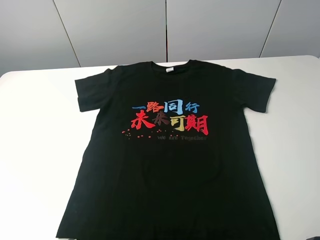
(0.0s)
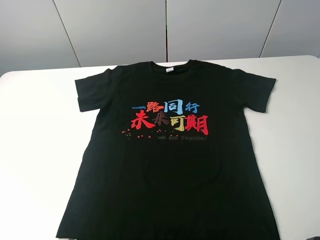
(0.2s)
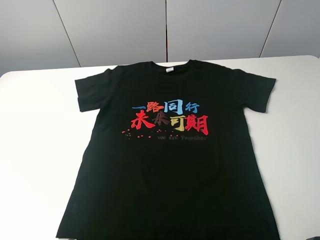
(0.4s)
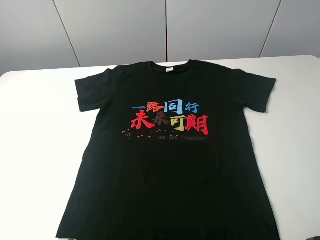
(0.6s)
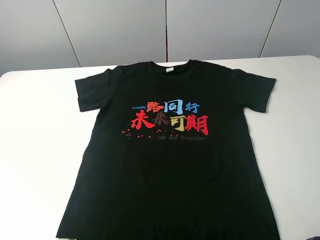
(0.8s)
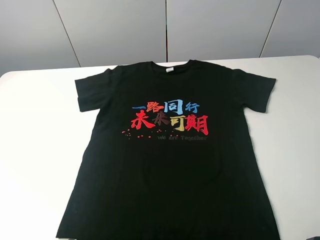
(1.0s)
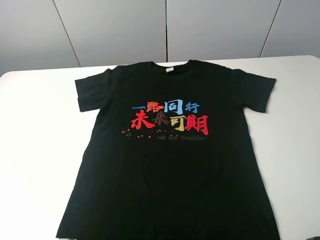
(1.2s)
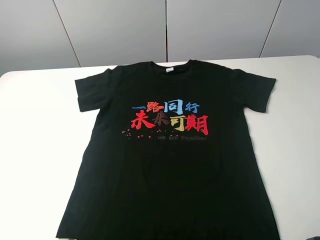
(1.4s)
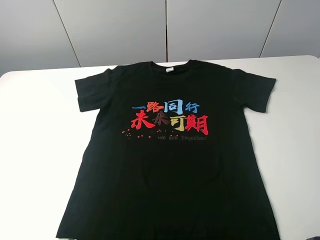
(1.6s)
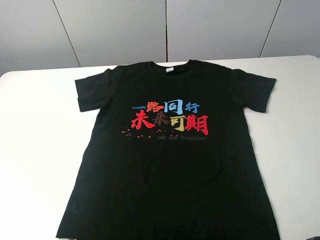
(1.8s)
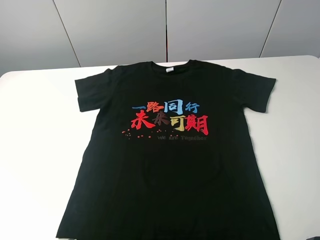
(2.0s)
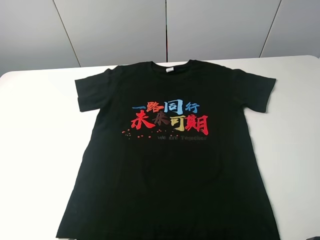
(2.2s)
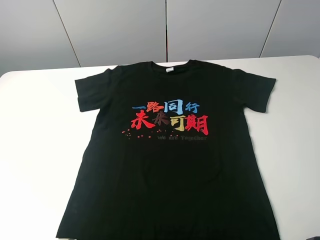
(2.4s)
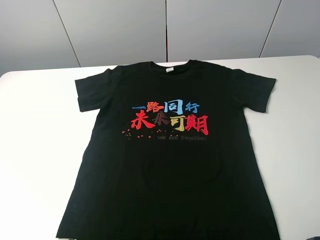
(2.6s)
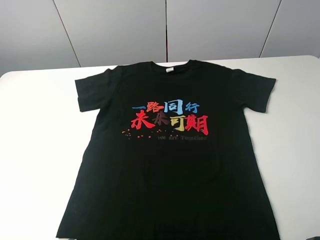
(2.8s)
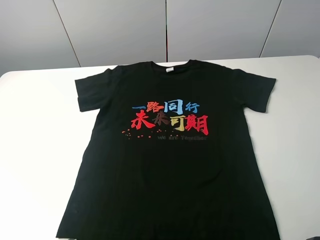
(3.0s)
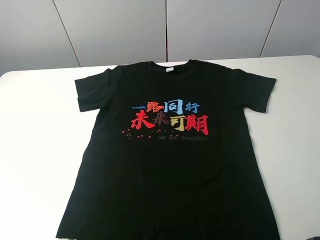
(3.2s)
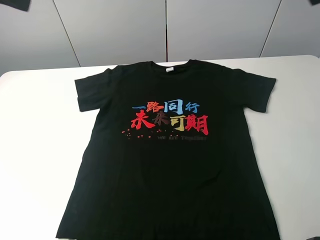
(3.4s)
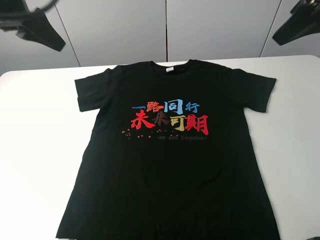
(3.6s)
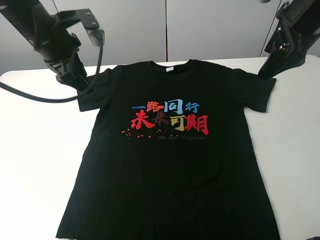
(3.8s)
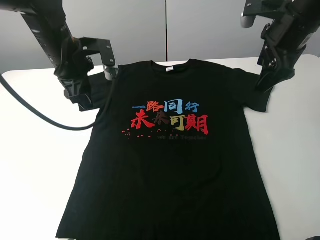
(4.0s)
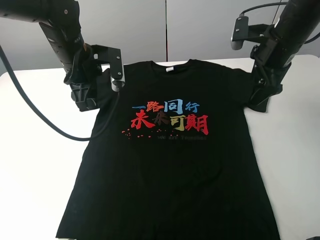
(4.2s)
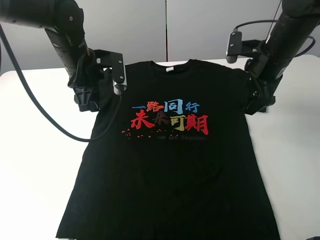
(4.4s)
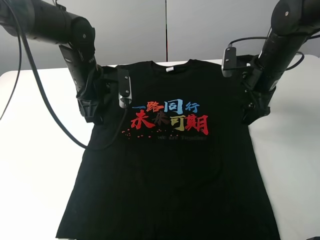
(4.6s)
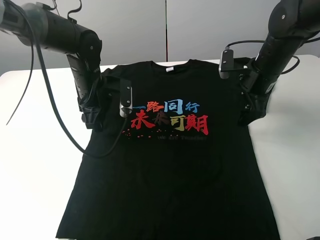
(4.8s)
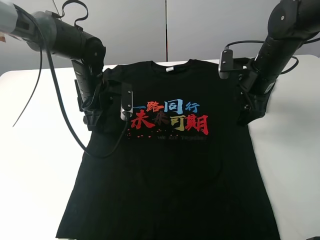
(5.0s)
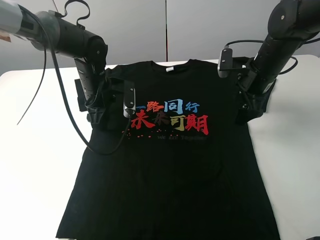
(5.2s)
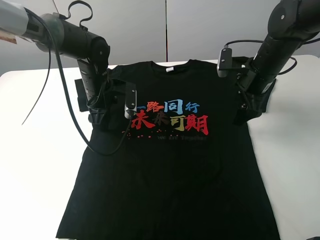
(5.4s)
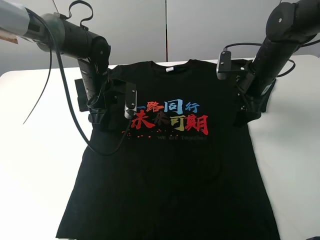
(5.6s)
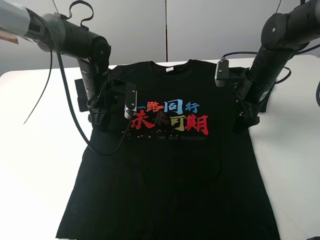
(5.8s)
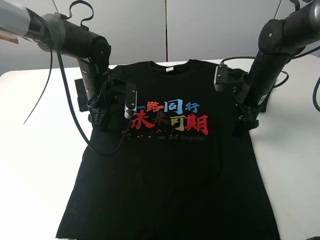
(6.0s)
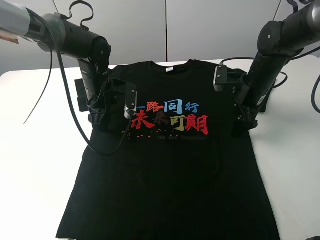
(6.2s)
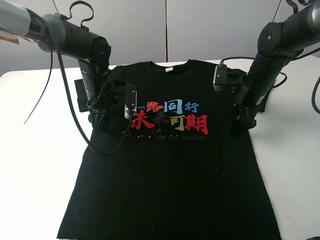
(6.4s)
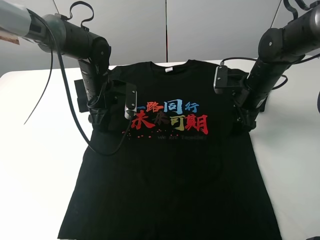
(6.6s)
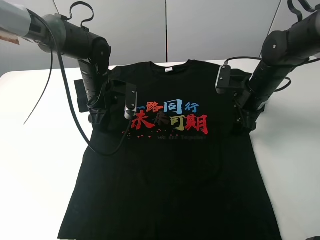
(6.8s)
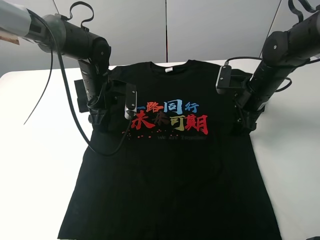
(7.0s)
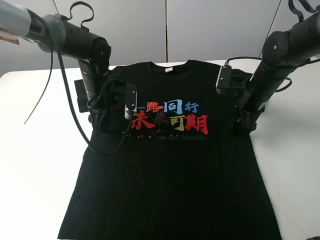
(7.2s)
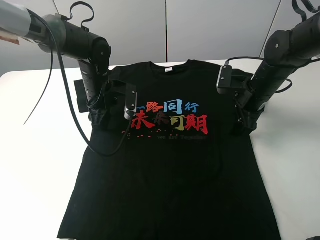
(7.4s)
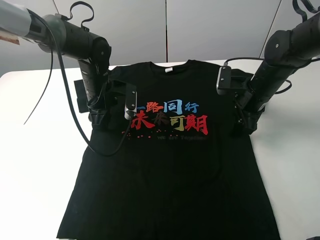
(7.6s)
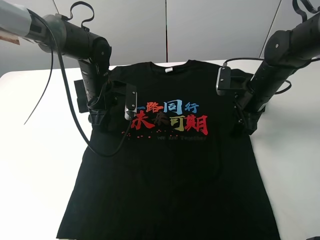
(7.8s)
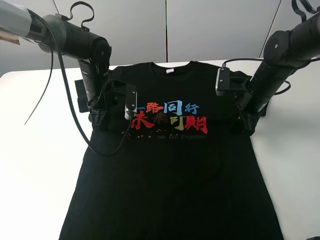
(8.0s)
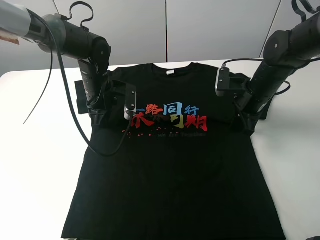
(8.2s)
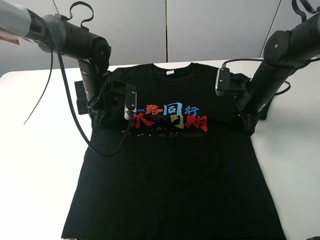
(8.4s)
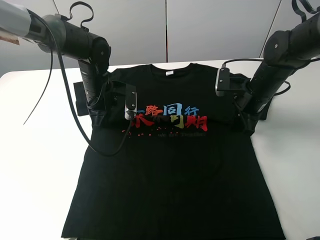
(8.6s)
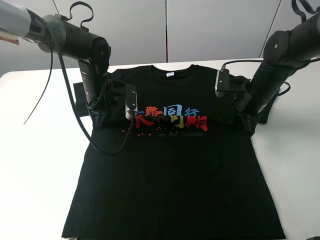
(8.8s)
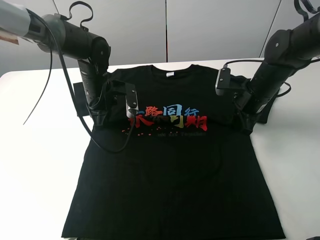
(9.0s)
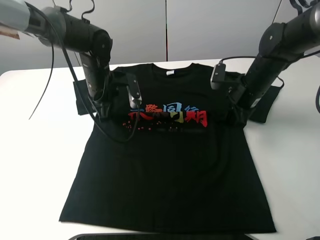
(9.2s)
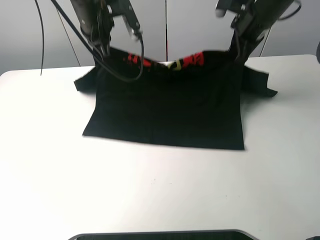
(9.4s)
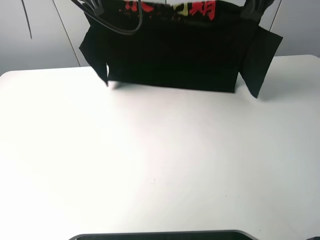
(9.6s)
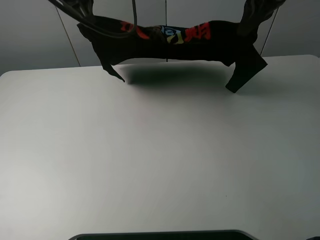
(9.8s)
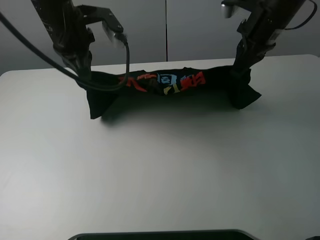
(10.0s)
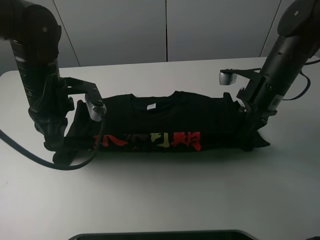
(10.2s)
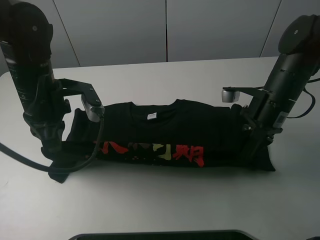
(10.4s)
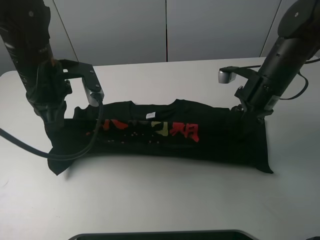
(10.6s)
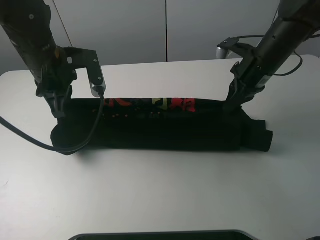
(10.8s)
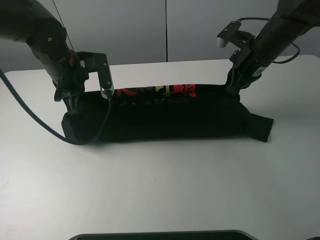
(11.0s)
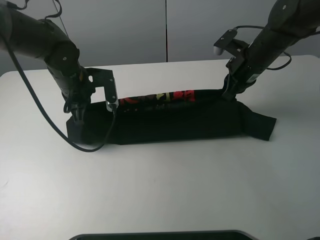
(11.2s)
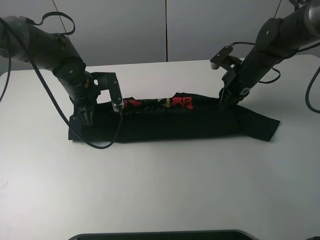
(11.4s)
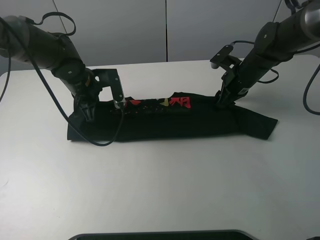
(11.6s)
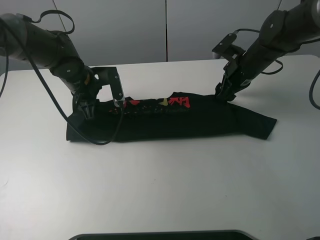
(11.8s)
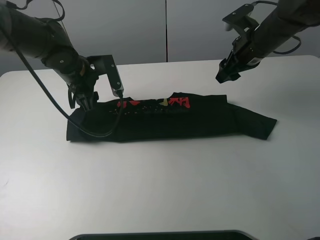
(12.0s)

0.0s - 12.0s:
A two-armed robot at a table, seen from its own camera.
Task of the whole recording: fold the clothes on the table.
Step, 0.0s - 8.4s: Lift the black T-shirt with the left gripper.
Step, 8.6s - 12.0s: Fold the black T-shirt downward with the left gripper.
0.0s - 1.6s: Both grippers stay about where they are.
3.0s - 4.4s: The right gripper shifts about 35 cm downward and forward, while the left gripper shifts approximately 35 cm downward, forward and to the right.
4.4s - 6.0s: The grippers both shift downward by roughly 5 cm.
6.0s - 7.6s: The grippers move only a little.
7.6s - 9.0s: The left gripper closes up. The right gripper closes up.
9.0s - 10.4s: The left gripper shifts approximately 15 cm backward, upward and to the left, while the right gripper goes roughly 5 cm backward, and goes upward and returns, about 25 cm each way.
10.4s - 12.0s: The grippers both shift forward by about 10 cm. The right gripper opens up. The left gripper opens.

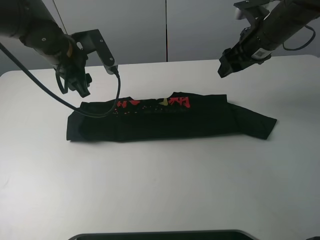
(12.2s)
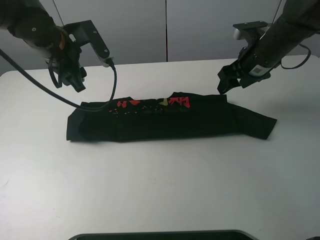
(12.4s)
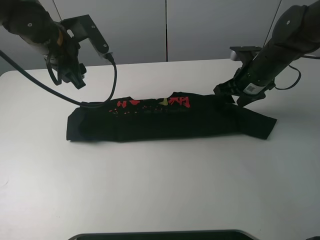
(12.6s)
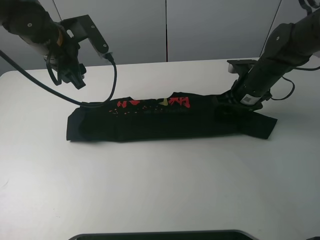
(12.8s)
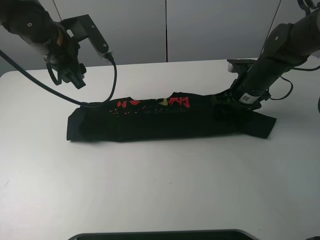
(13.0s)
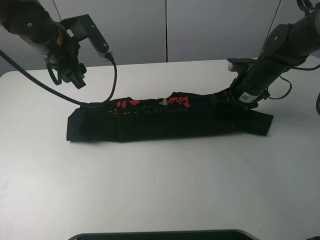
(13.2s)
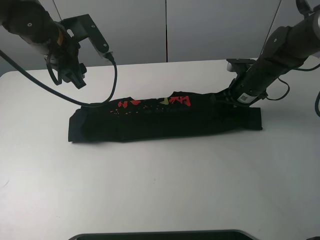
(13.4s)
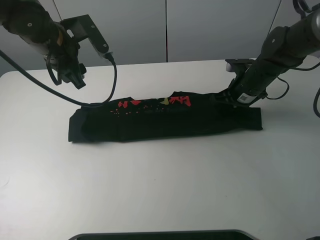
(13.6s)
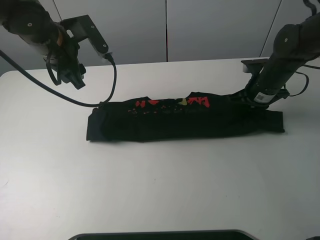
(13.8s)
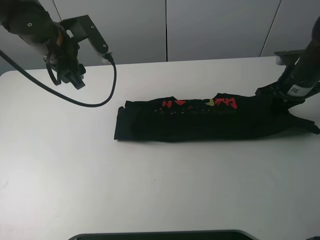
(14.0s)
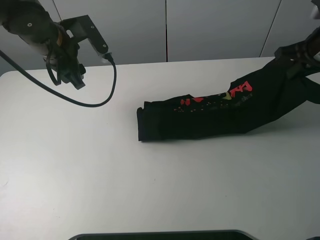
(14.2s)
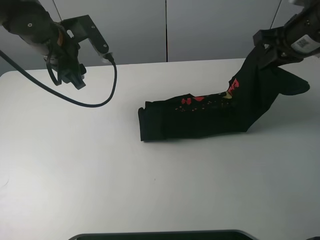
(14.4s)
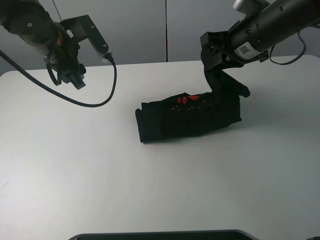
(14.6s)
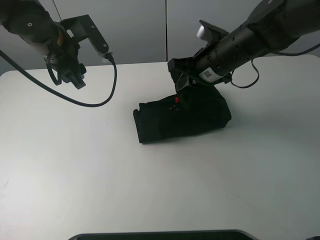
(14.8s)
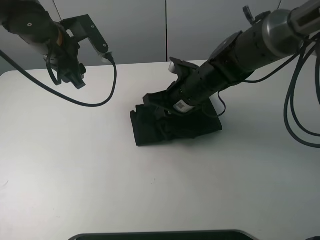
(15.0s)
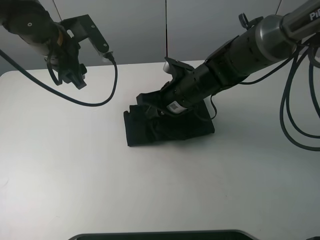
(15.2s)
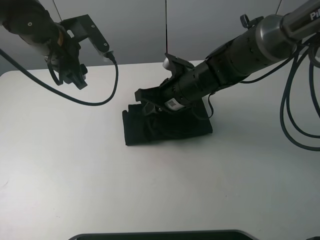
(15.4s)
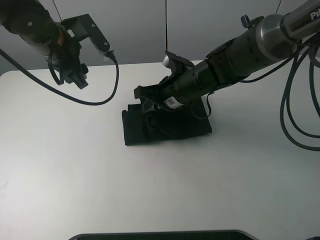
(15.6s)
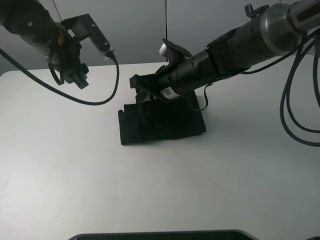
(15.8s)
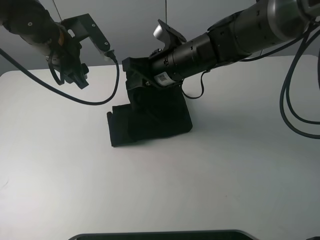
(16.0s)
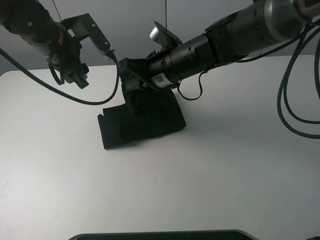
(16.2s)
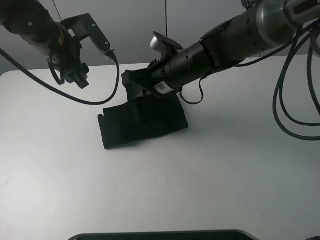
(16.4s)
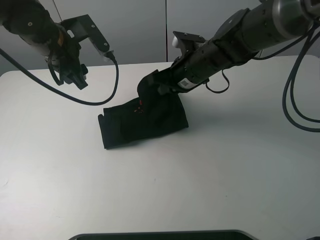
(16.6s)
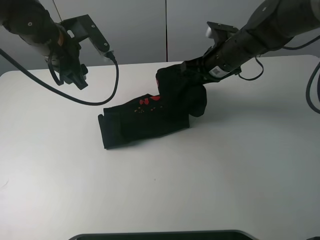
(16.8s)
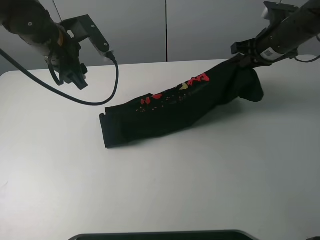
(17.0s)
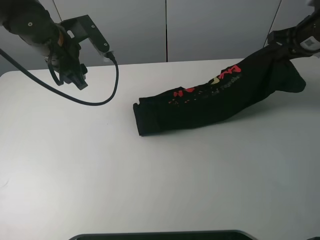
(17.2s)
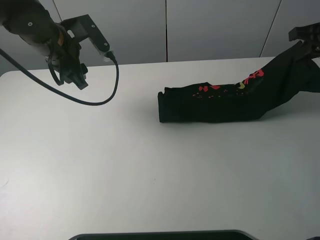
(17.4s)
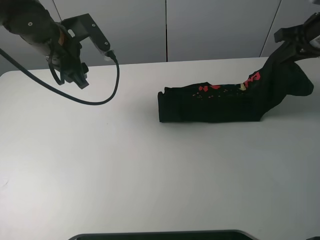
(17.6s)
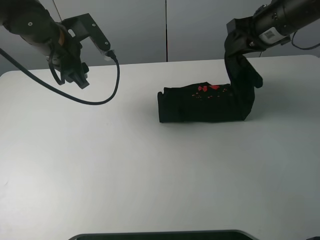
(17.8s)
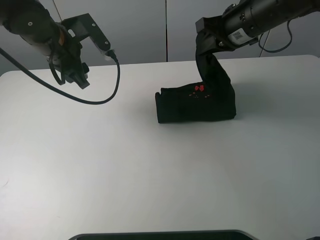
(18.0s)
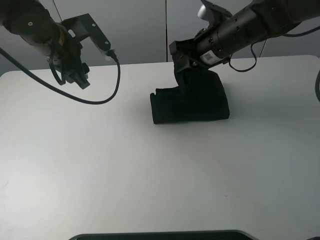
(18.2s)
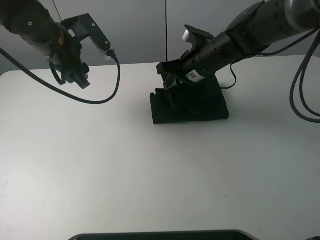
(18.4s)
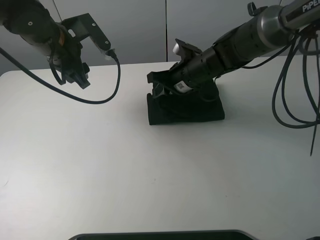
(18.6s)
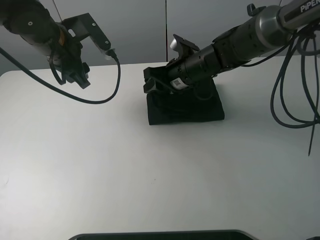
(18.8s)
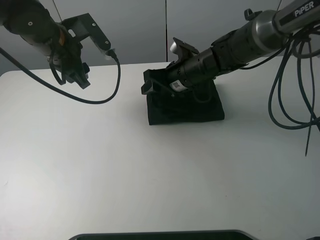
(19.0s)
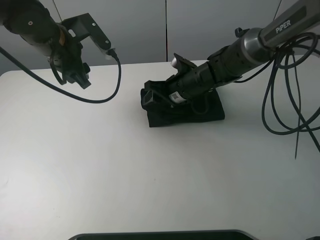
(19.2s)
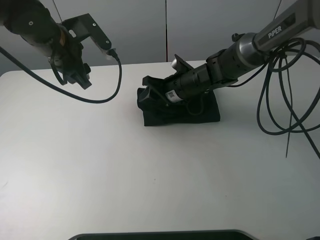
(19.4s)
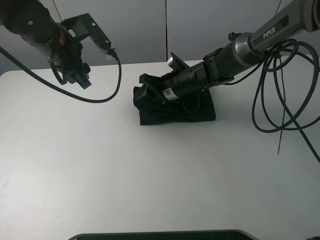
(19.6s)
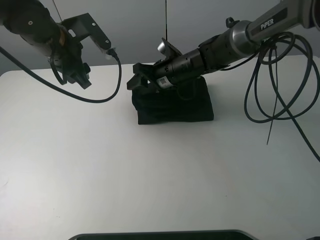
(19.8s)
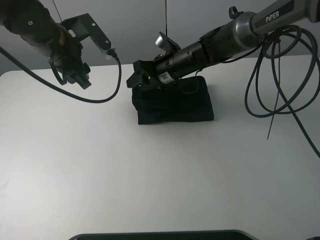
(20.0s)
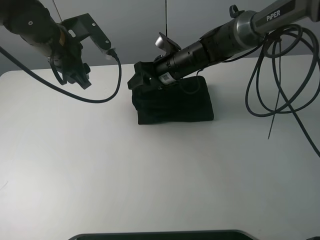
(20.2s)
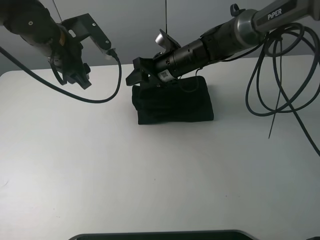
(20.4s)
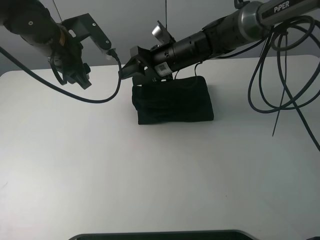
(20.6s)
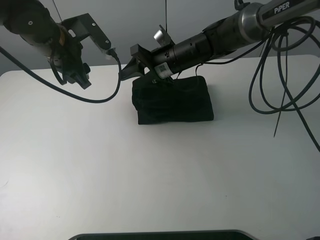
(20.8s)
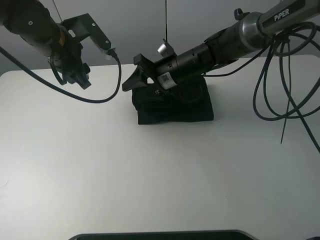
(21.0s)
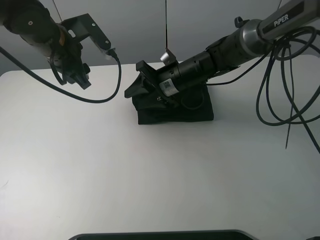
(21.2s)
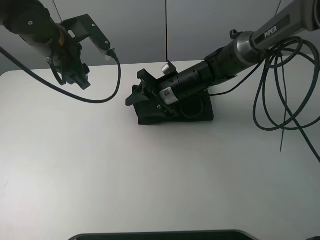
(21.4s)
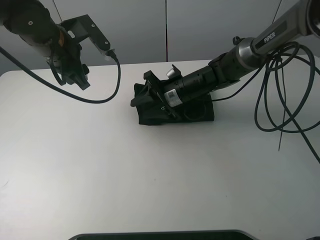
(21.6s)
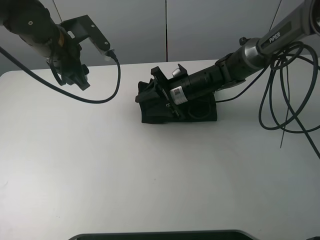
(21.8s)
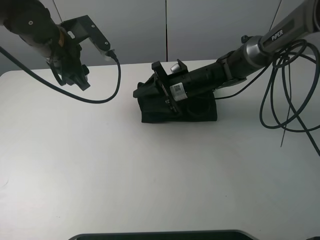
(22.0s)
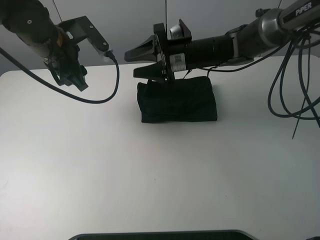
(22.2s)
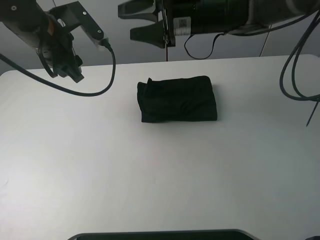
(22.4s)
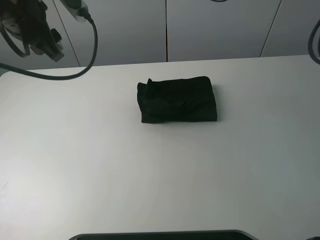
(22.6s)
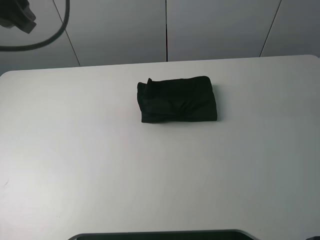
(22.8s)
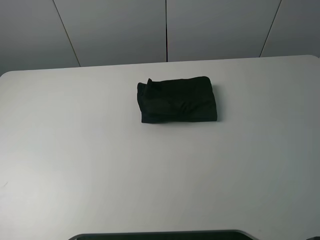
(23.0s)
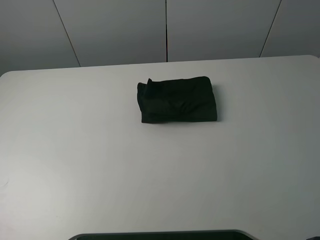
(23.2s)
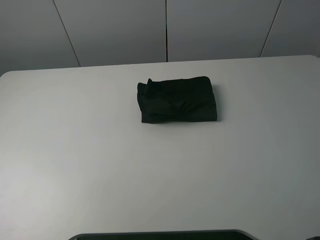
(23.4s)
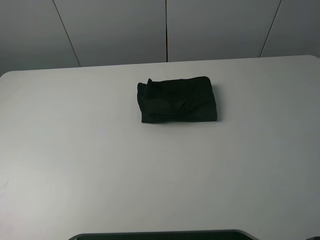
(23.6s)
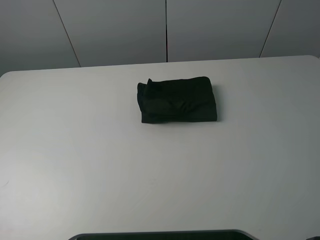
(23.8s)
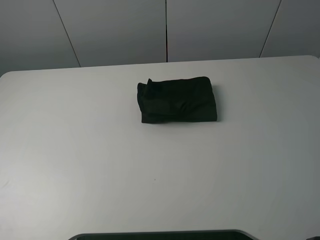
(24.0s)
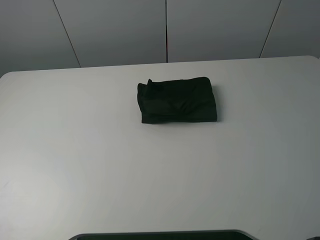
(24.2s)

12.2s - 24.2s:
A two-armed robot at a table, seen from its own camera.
Task of the whole recording: fold the clothes on the table.
Step, 12.2s - 13.8s: Grasp the black T-shirt with the right gripper.
Step, 14.0s - 22.0s: Fold the black T-shirt from right to left with right gripper.
12.2s - 13.8s: The right gripper is displaced downward and to the right by approximately 10 cm, and closes its fingers.
13.8s - 15.2s: The right gripper heads to the left, covering some 20 cm.
15.2s - 16.6s: The right gripper moves some 5 cm.
16.6s - 18.2s: The right gripper travels to the right and back again, some 25 cm each way.
18.2s - 19.8s: The right gripper moves downward and to the left, approximately 10 cm, and opens.
21.2s - 22.6s: The left gripper shifts about 10 cm upward; the right gripper heads upward, covering some 25 cm.
22.6s - 24.2s: The left gripper heads backward and to the left, covering about 50 cm, while the right gripper goes about 60 cm backward and to the right.
